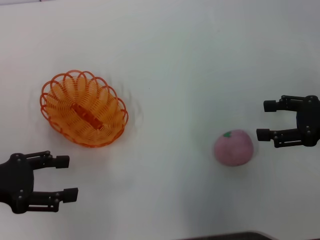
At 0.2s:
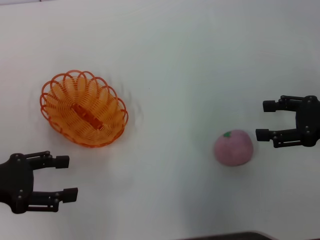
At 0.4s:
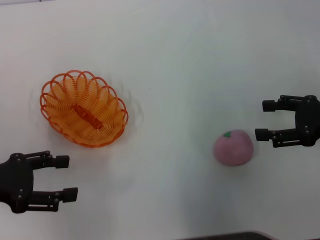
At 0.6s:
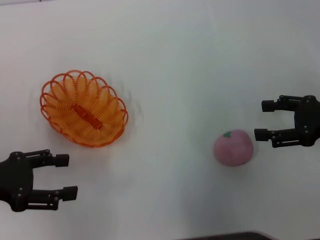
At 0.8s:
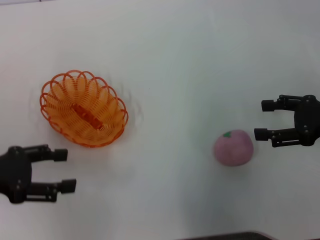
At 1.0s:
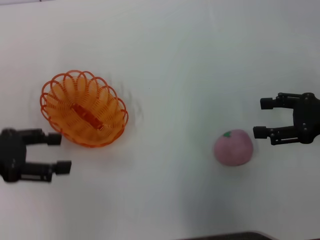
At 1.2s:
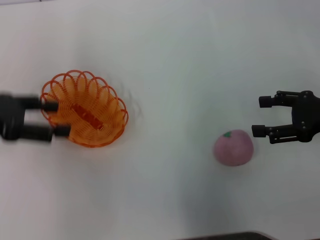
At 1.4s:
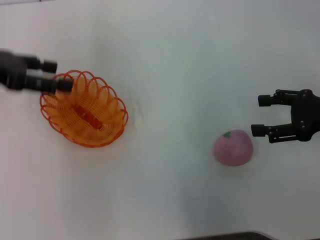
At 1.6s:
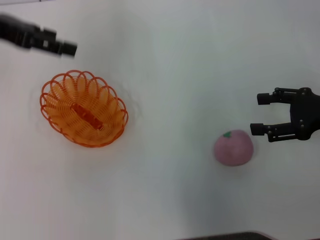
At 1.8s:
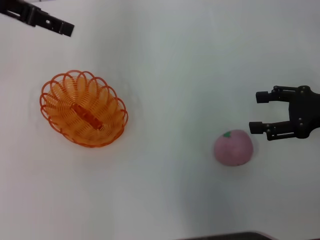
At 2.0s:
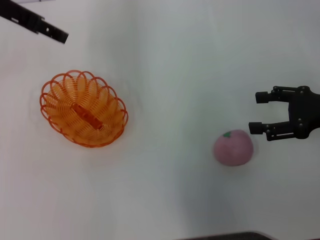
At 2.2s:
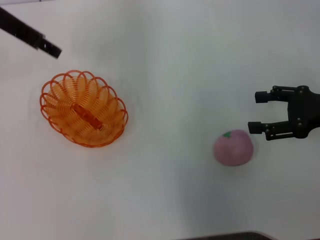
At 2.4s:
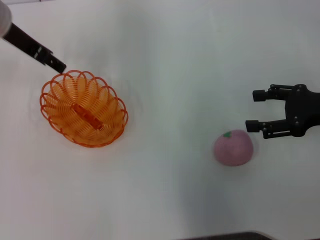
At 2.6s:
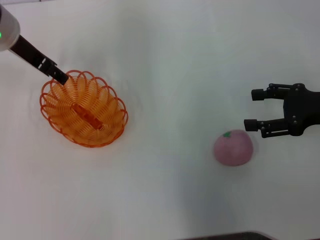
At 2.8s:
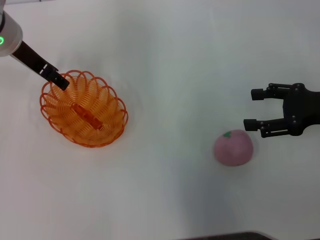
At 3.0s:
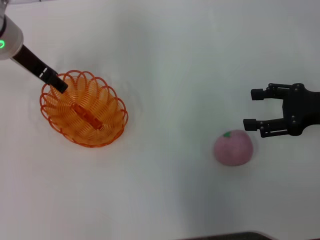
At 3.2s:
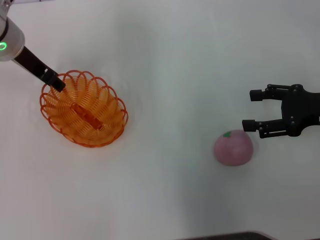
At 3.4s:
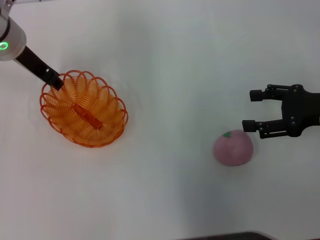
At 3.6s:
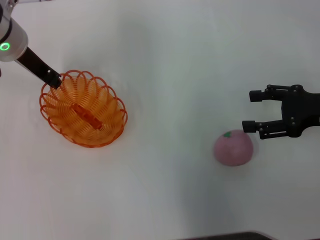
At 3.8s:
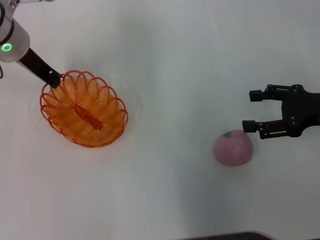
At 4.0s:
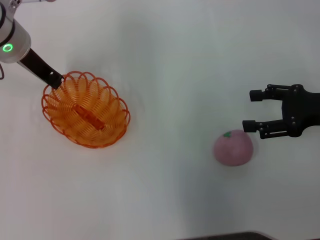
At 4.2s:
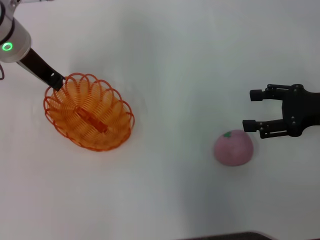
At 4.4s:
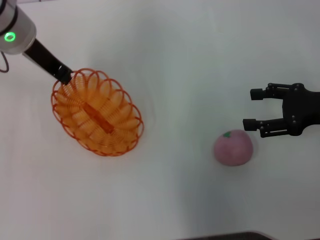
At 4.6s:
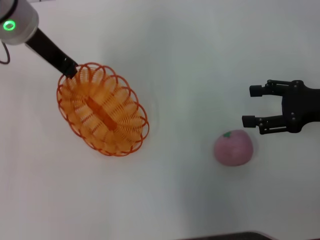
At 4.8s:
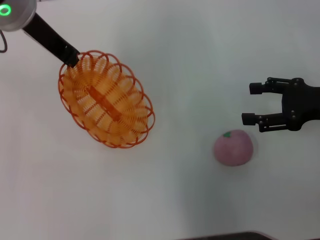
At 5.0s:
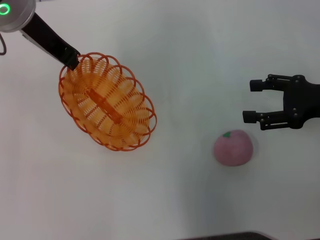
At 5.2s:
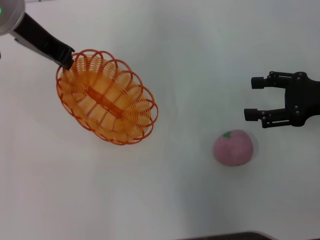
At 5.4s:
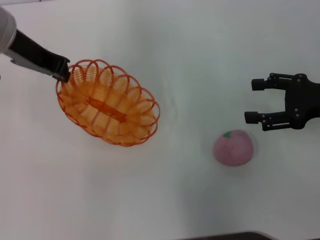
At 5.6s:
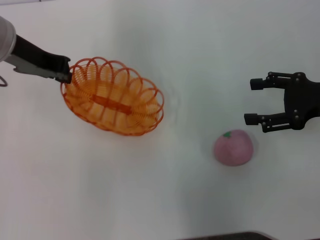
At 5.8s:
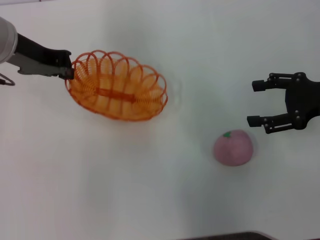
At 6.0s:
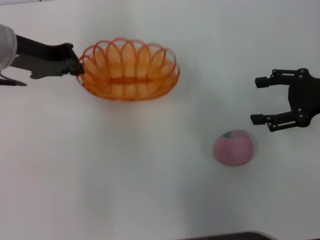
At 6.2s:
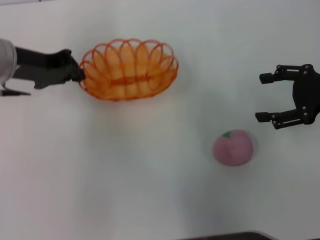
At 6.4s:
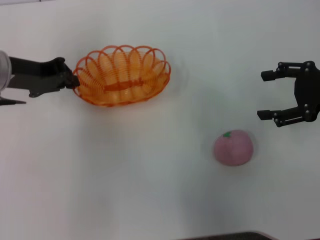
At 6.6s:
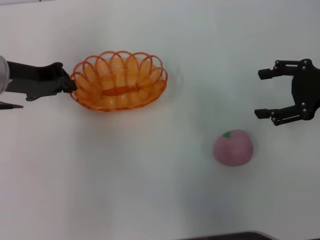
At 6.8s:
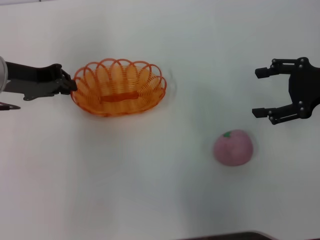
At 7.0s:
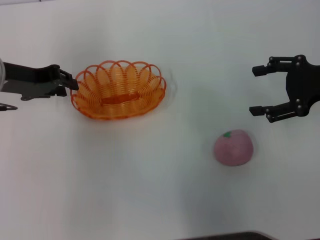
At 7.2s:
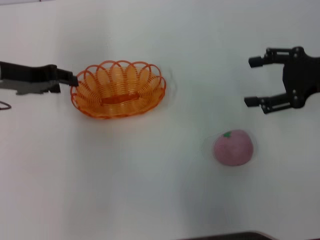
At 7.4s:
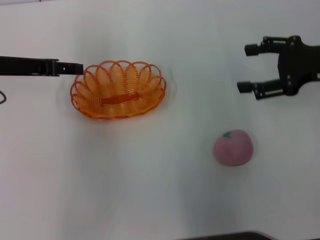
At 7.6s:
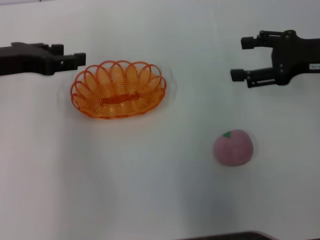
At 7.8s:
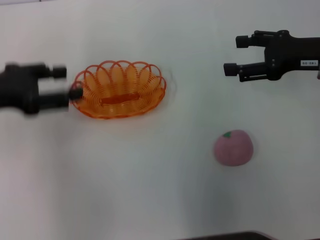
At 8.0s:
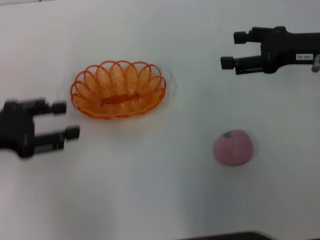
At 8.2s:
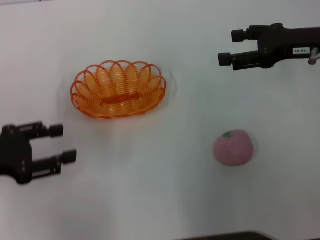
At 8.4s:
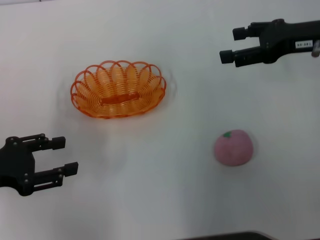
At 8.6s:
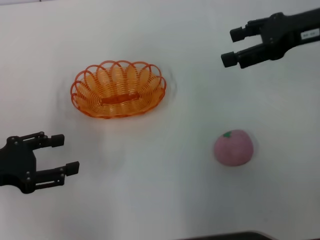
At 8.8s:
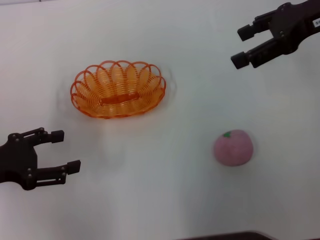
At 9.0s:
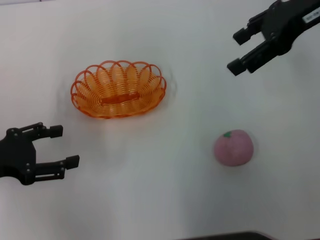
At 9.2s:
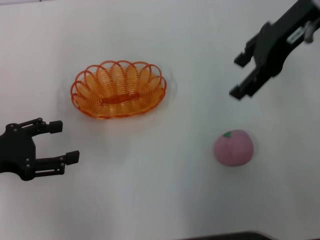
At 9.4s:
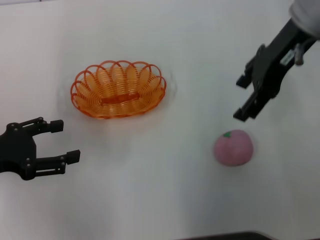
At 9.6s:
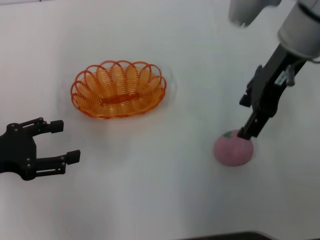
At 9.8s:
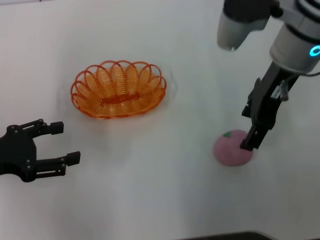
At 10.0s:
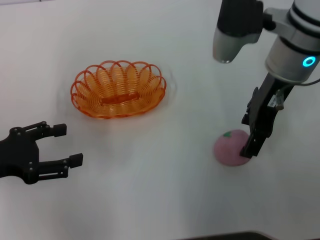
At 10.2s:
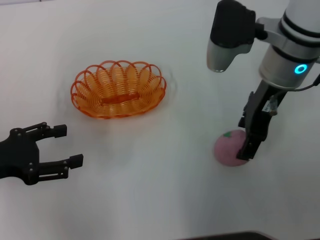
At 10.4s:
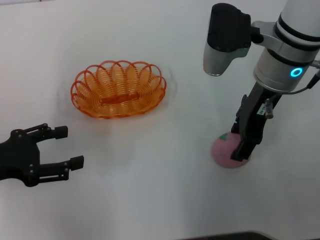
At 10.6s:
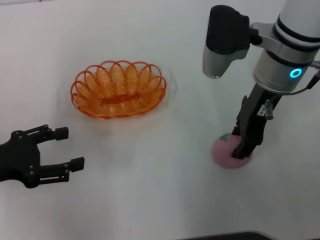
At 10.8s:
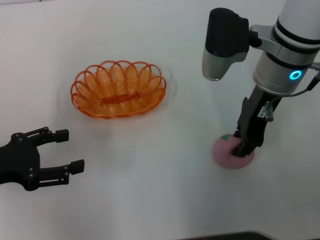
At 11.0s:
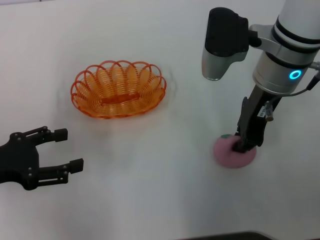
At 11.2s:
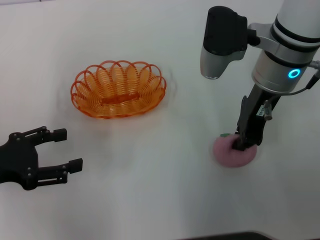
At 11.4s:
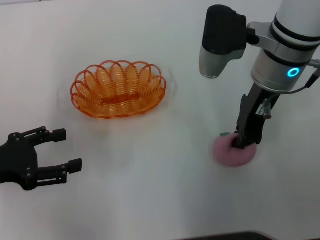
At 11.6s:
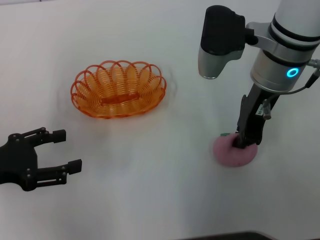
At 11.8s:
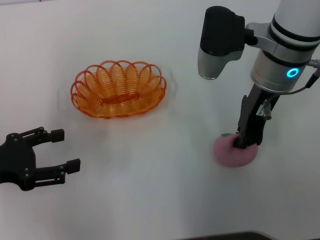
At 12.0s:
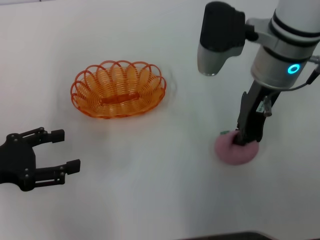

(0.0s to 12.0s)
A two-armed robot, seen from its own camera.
Step, 0.0s - 5.2s: Pick up the basket with the left gripper.
Step, 5.4s - 8.0s: Place the basket in the center of view with the left gripper.
0.0s - 1.6s: The left gripper heads forward and upward, covering about 20 cm.
1.6s - 3.0s: The left gripper is displaced downward and to the right by approximately 10 cm.
3.0s - 4.4s: The left gripper closes.
4.4s - 6.0s: The left gripper changes place by roughly 5 cm.
6.0s - 7.6s: The left gripper ends up about 5 cm from where it was, and opens.
7.6s - 9.0s: The left gripper moves backward, downward and to the left, some 15 cm; the right gripper is displaced upward, to the left and forward by about 15 cm.
9.0s - 10.4s: The right gripper goes some 15 cm downward and to the left.
10.4s - 12.0s: The right gripper closes its fingers.

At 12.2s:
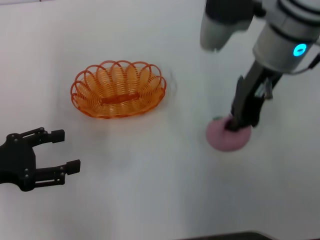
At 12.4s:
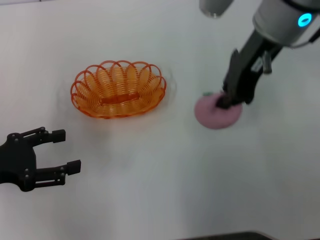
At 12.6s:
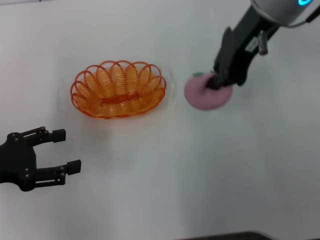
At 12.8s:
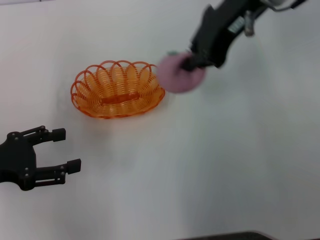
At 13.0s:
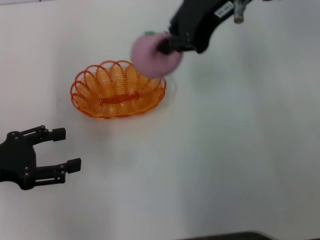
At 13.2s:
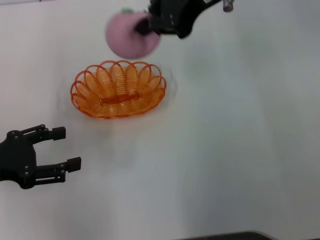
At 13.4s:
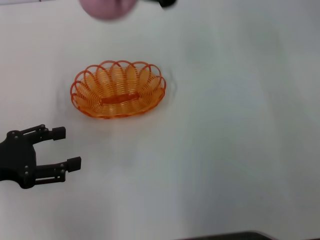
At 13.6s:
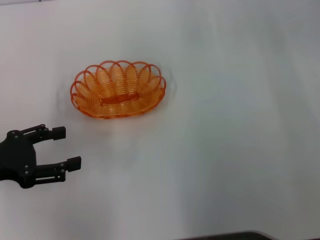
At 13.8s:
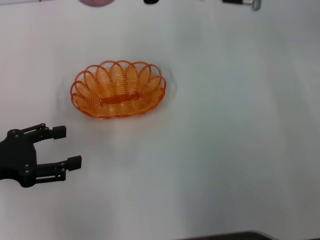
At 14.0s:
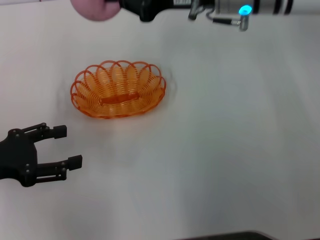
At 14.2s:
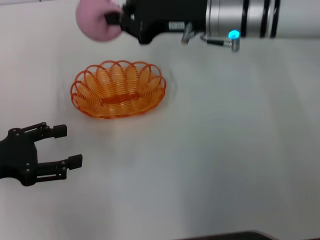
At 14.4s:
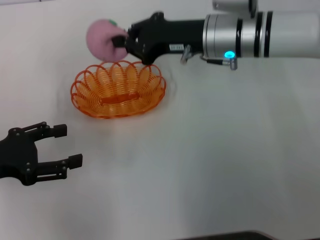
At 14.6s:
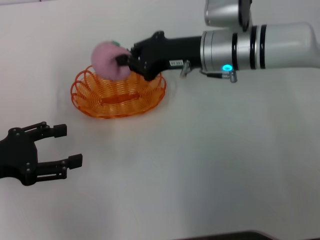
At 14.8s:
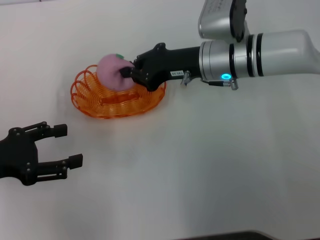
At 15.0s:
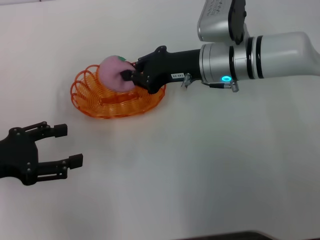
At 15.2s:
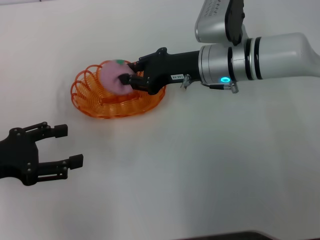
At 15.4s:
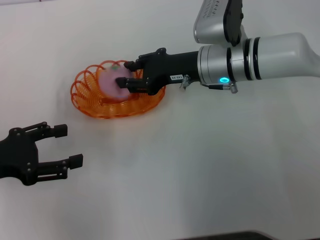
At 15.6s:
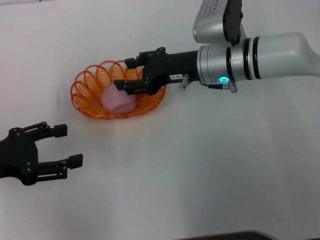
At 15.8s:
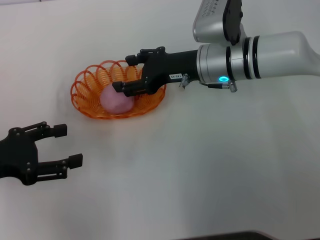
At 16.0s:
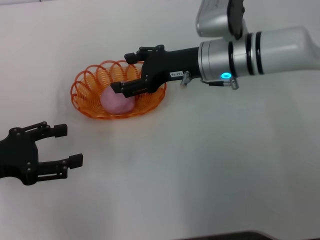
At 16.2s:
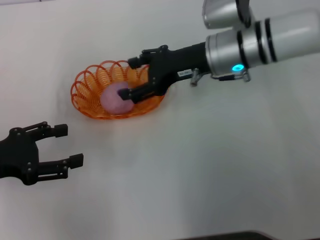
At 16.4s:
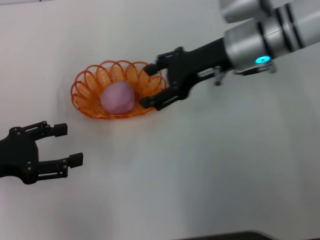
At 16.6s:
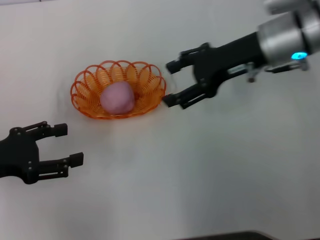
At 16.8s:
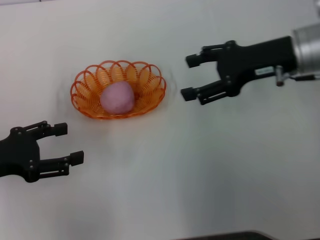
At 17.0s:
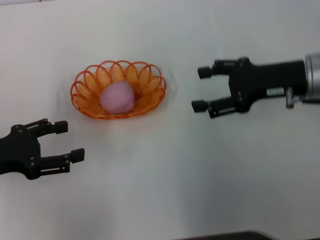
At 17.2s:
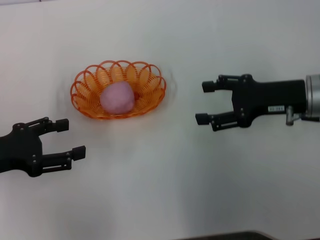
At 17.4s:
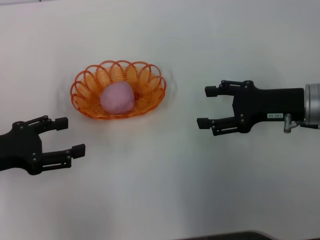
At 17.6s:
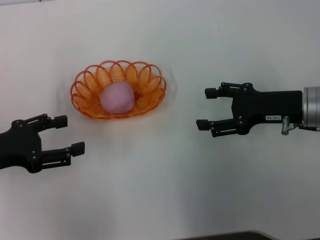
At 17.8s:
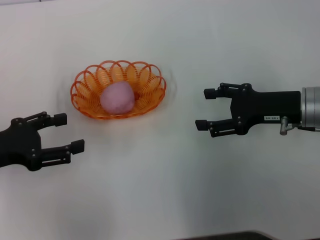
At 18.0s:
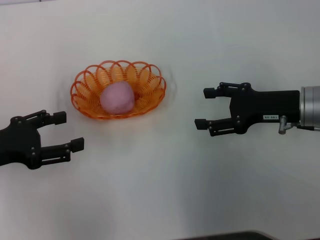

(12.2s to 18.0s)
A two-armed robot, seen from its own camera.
Step, 12.4s - 16.8s: Place the peach into the basket with the right gripper.
12.2s - 13.6s: The right gripper goes some 5 cm upward.
13.6s - 15.0s: The right gripper heads downward, covering about 15 cm.
15.0s - 16.6s: The right gripper moves upward and to the right, about 10 cm, and opens.
16.6s - 18.0s: The right gripper moves downward, to the right and backward, approximately 15 cm.

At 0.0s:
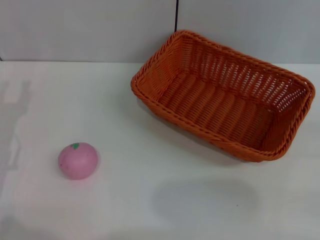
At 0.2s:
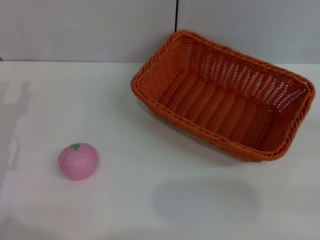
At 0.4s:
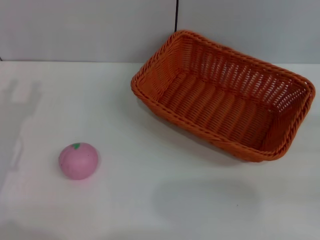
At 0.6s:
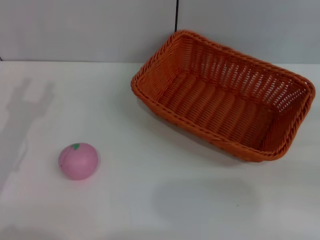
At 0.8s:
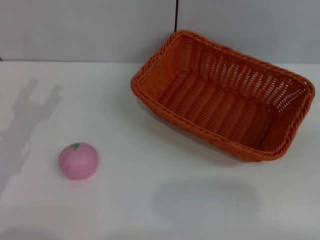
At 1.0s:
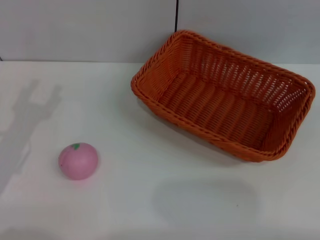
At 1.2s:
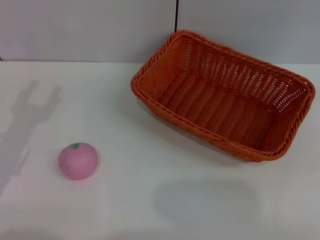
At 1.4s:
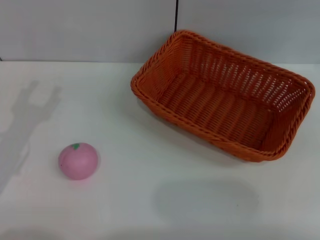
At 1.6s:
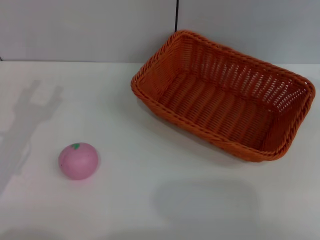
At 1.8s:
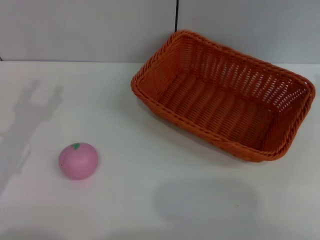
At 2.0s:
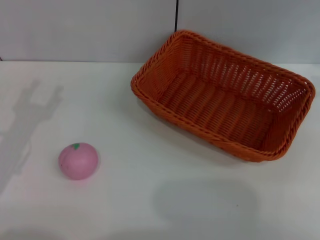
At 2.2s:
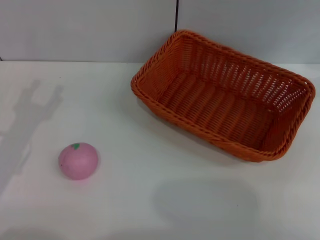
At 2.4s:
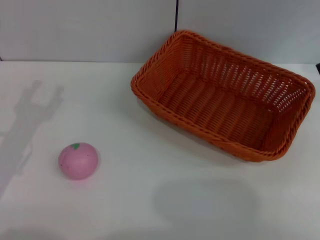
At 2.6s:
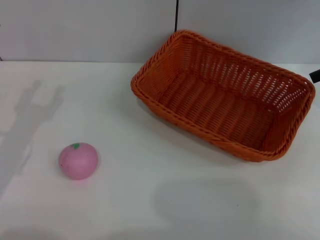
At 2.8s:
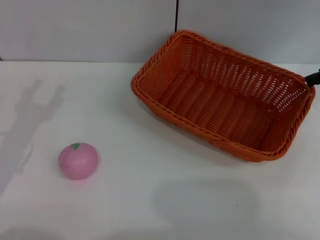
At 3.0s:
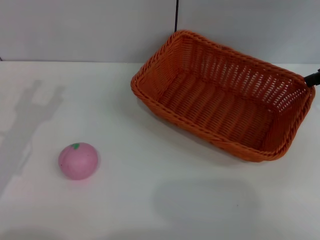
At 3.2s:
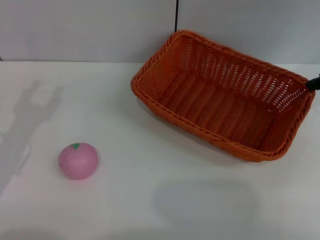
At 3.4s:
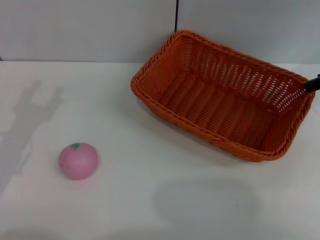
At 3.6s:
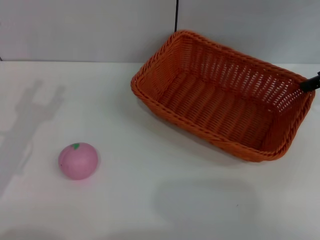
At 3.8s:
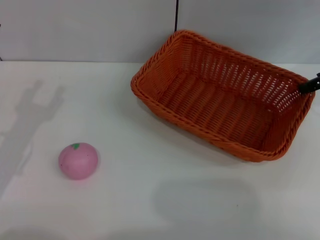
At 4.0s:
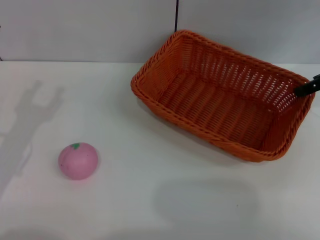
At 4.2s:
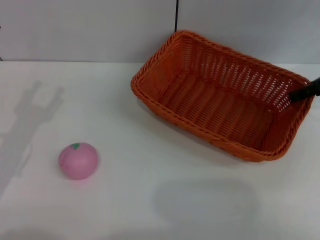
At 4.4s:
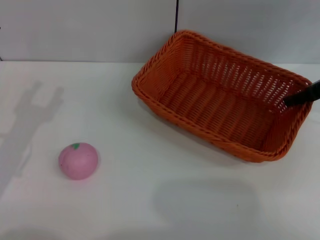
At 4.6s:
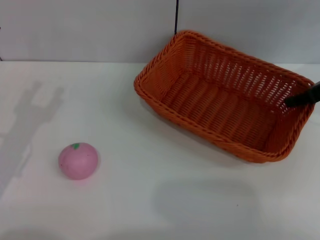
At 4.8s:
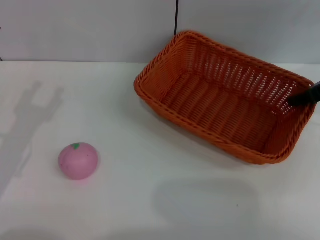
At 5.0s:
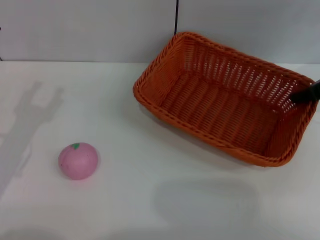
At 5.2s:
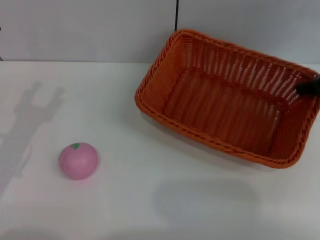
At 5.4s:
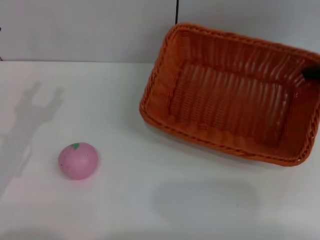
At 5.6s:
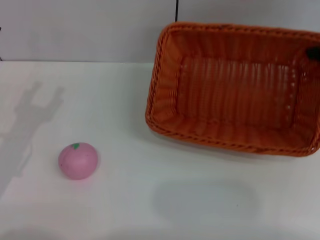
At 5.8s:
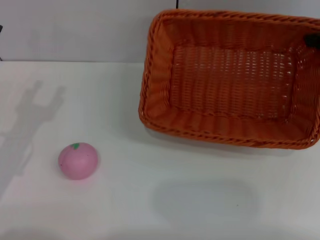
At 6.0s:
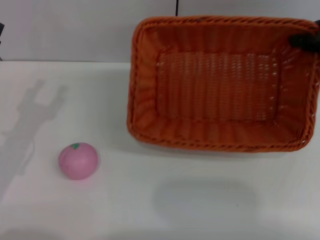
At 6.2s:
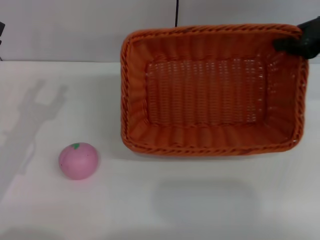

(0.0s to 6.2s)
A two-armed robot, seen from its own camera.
3.2s - 4.6s: The right gripper goes approximately 5 cm downward.
4.6s - 6.2s: The right gripper moves upward, about 5 cm, and closes.
